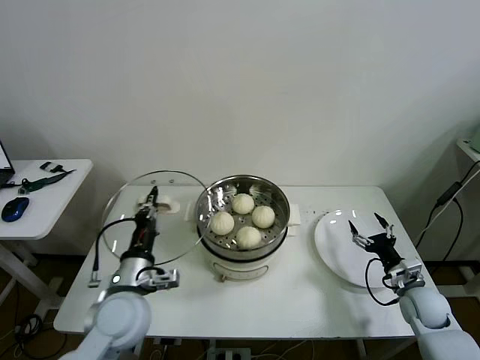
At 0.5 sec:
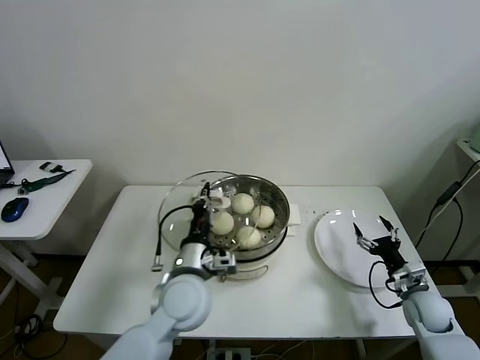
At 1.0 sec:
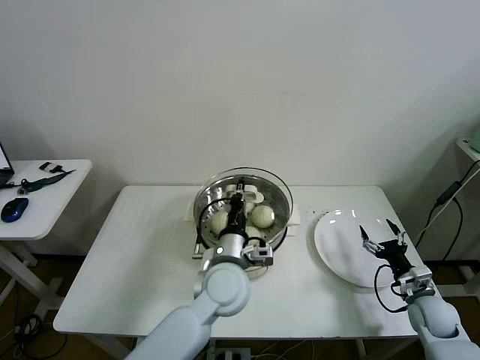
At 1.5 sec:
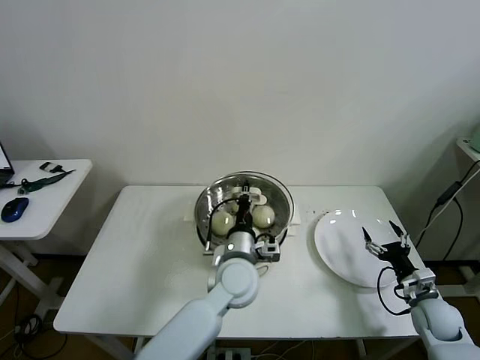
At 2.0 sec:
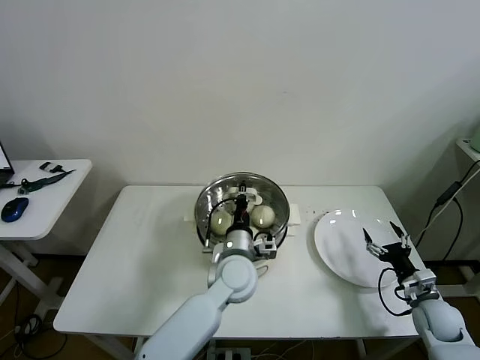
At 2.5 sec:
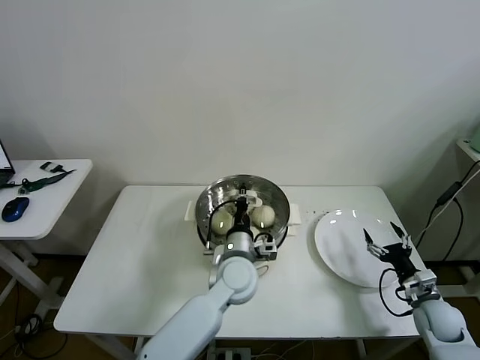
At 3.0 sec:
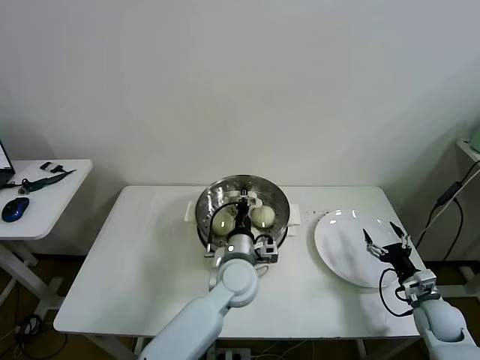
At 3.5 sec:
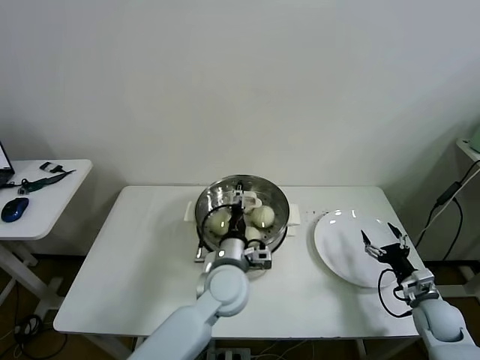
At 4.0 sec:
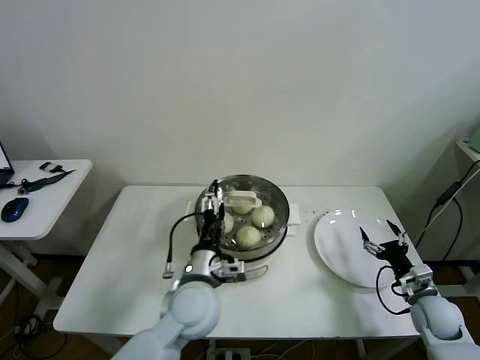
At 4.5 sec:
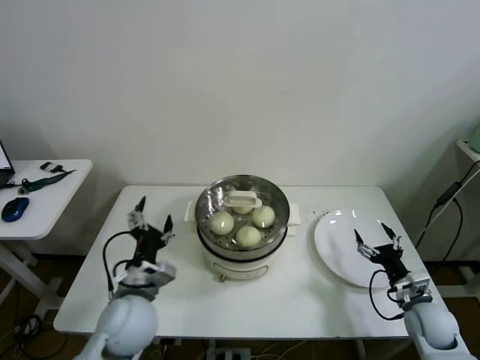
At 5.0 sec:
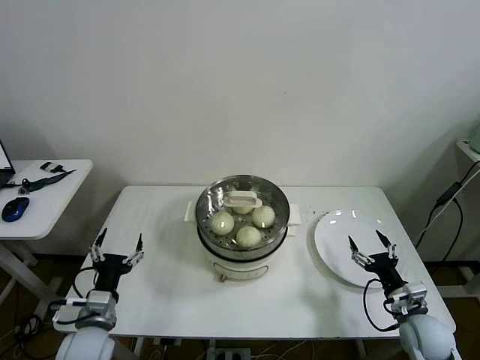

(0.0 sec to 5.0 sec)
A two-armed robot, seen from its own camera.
Task of the whole recording: take steamed baozi put them in steamer then cover it.
Step, 0.0 sec - 3.0 sec: Place the pot lid on the steamer with left gripper.
0.0 sec - 2.5 sec: The left gripper shifts approximately 25 cm to the right and forward.
2.5 sec - 5.0 sec: The left gripper travels to the left and backward by about 30 cm, and opens; the right gripper heads to the left, covering approximately 5 cm.

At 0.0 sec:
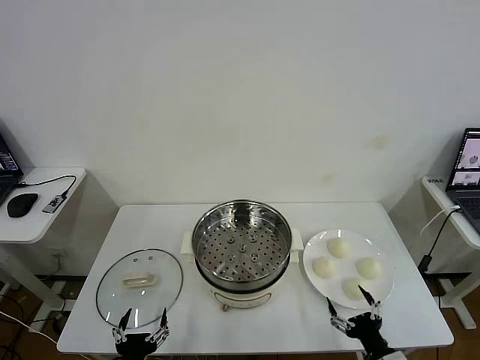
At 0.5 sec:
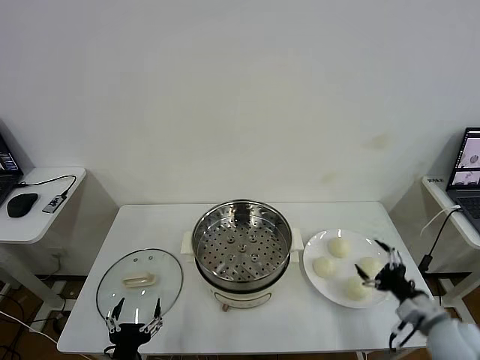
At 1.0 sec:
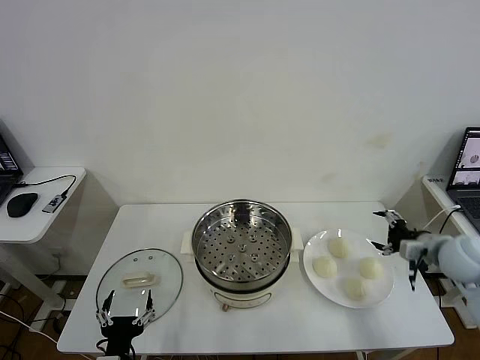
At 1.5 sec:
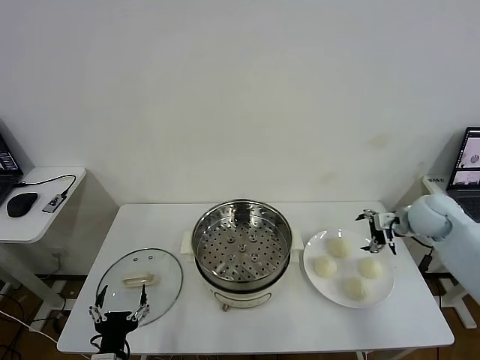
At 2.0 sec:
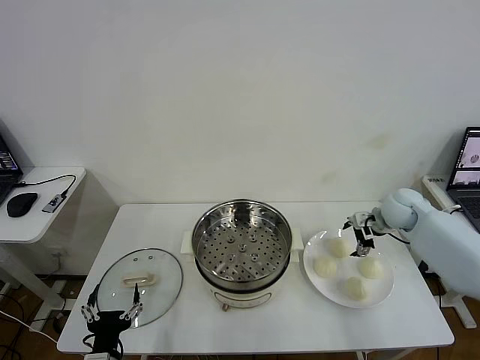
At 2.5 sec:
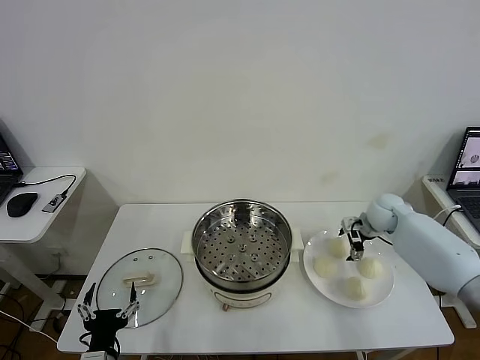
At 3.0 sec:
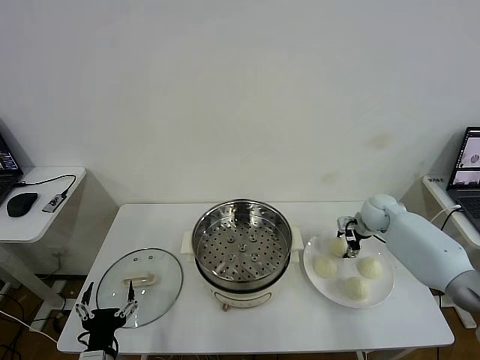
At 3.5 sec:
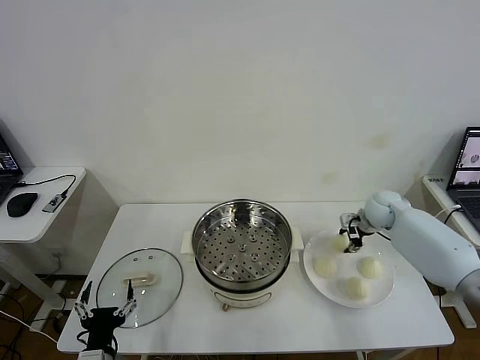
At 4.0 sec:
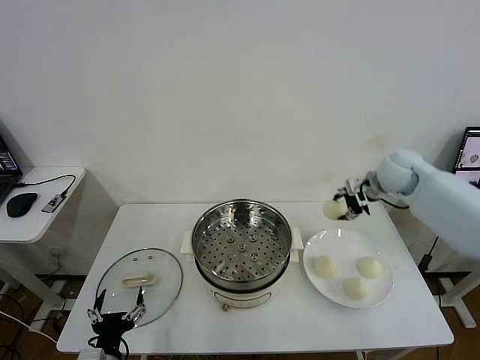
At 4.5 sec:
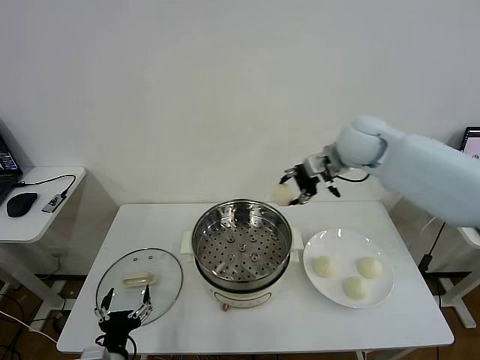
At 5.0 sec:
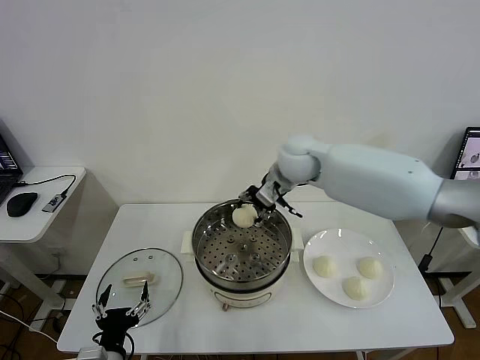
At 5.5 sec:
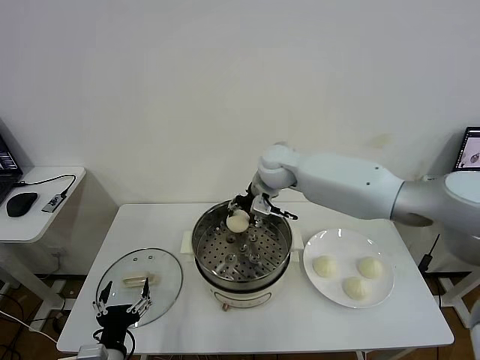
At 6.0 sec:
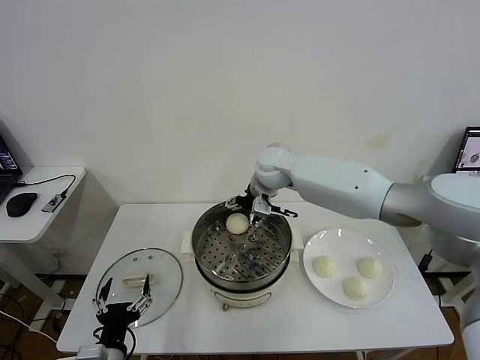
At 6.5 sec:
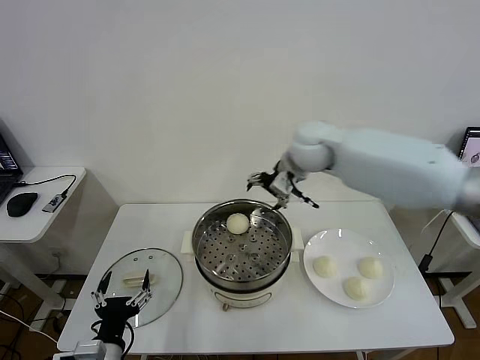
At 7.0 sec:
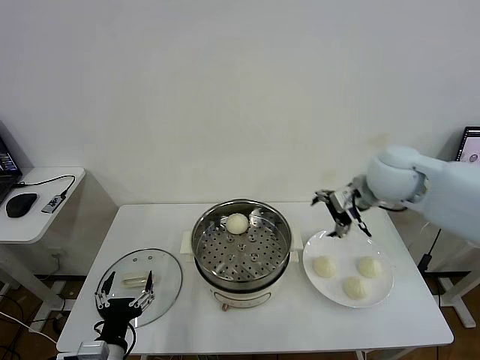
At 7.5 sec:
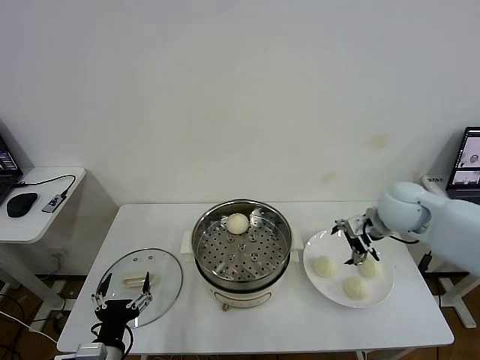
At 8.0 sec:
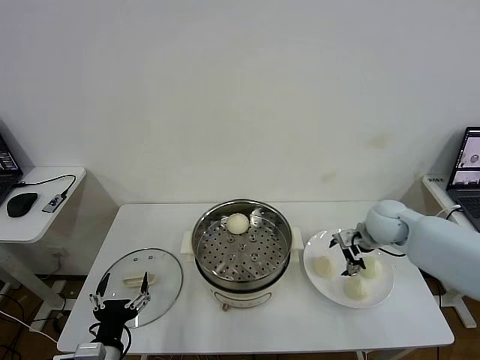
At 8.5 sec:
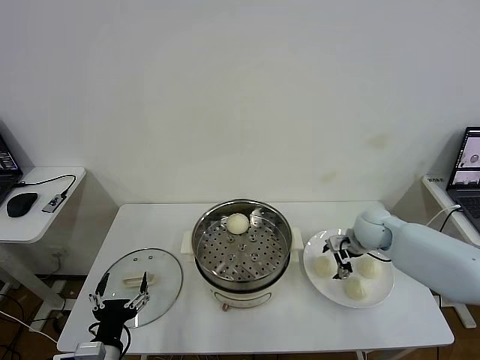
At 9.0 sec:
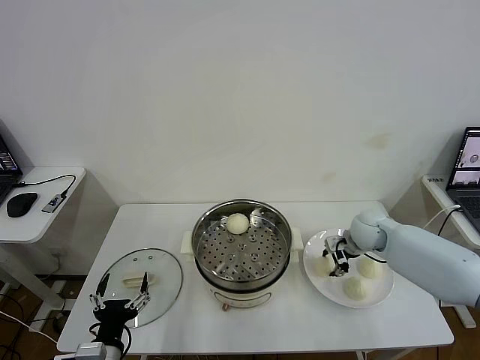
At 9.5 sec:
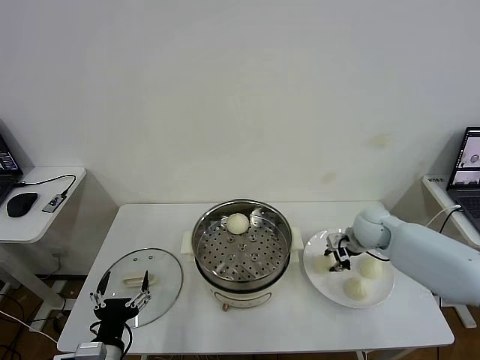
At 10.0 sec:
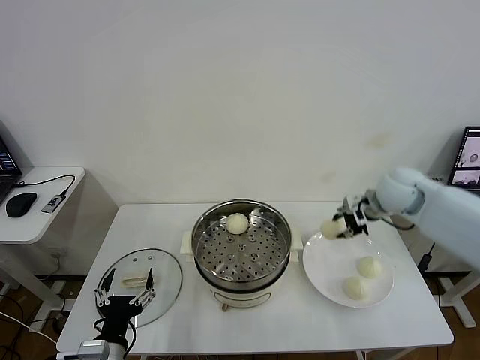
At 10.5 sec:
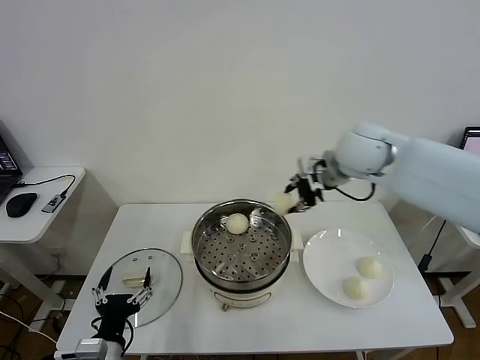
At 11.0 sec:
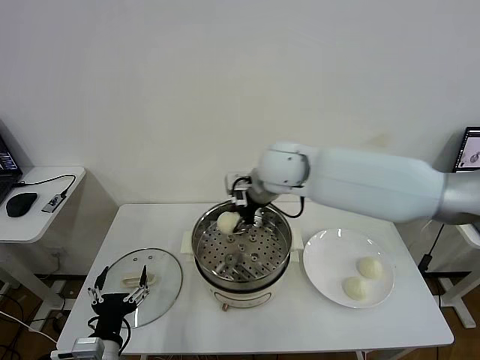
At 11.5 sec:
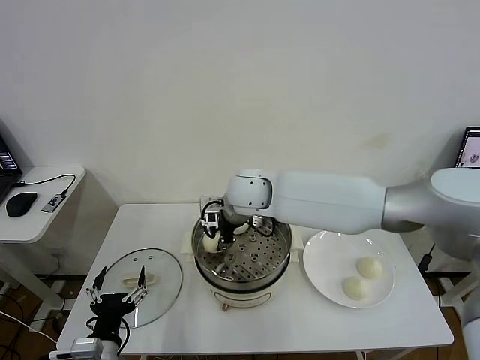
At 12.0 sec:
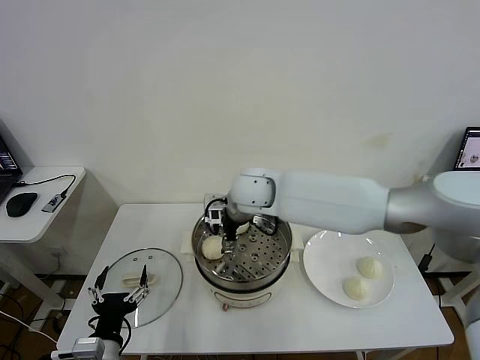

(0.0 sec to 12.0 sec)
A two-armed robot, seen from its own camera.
Task of the whole recording: take steamed baozi put them in steamer then cover it.
Step, 0.0 sec - 3.0 sec: Grasp the baozi in the plate with right gripper.
Step, 3.5 sec - 6.0 sec: Place the baozi on the steamer with right gripper.
Step, 6.5 sec - 9.0 sec: Grasp the baozi in the plate with right gripper.
Step, 9.5 sec - 12.0 sec: Place the baozi on the steamer with right gripper.
2.0 sec - 4.0 sec: The right gripper moves upward, roughly 15 cm, and closes its fingers.
4.0 sec - 6.0 sec: The right gripper heads to the left, covering about 25 cm, and opens up.
6.0 sec - 8.0 sec: The right gripper heads to the right and downward, covering some 25 cm.
8.0 sec - 10.0 sec: The right gripper heads upward, covering approximately 10 cm, and closes its fingers.
10.0 sec - 12.0 sec: The right gripper moves to the left, approximately 30 cm, and opens its fingers.

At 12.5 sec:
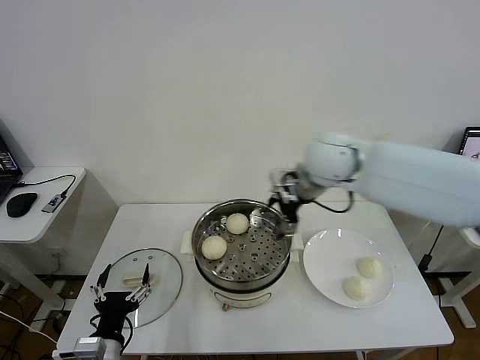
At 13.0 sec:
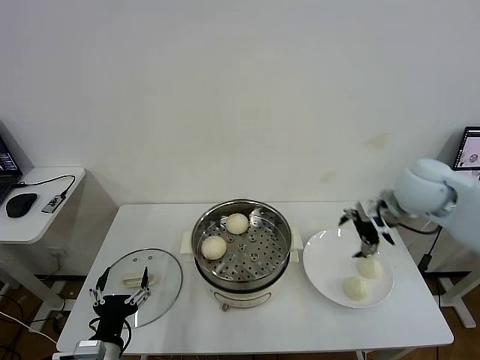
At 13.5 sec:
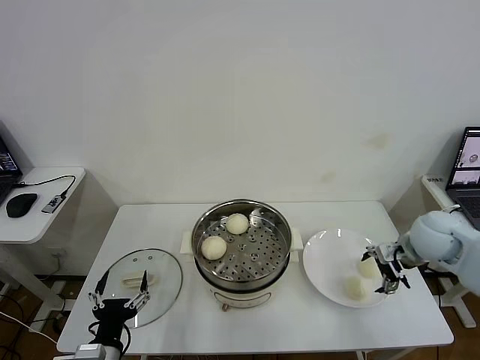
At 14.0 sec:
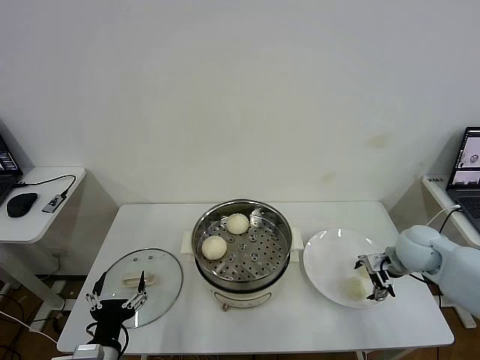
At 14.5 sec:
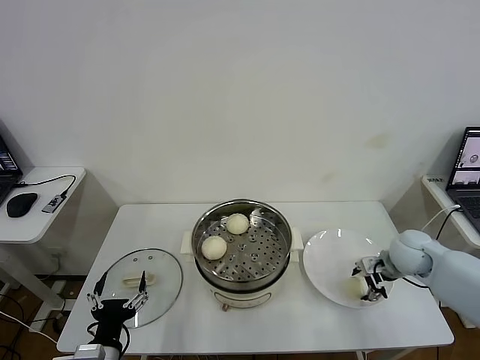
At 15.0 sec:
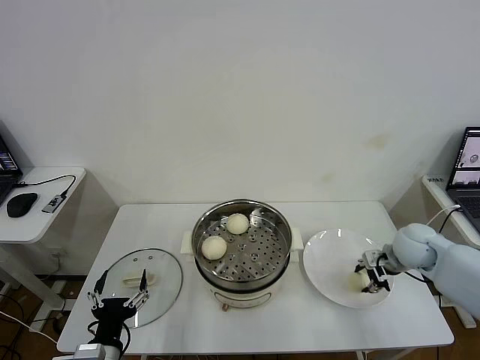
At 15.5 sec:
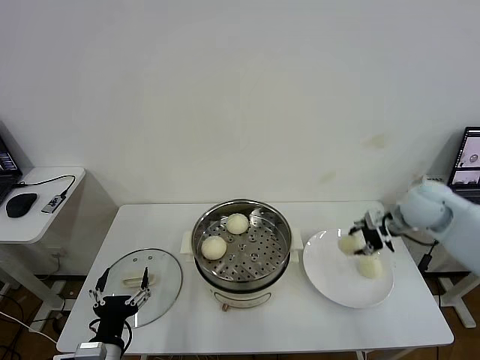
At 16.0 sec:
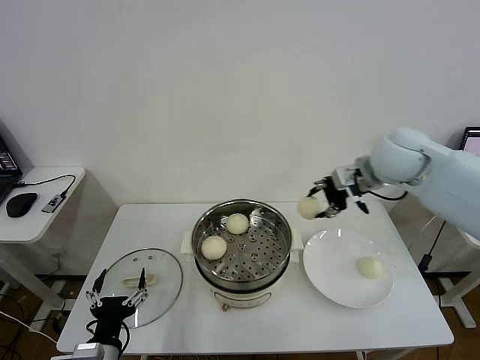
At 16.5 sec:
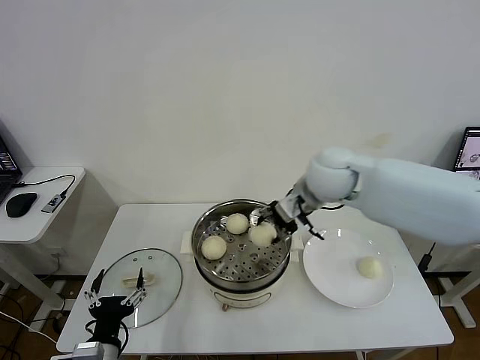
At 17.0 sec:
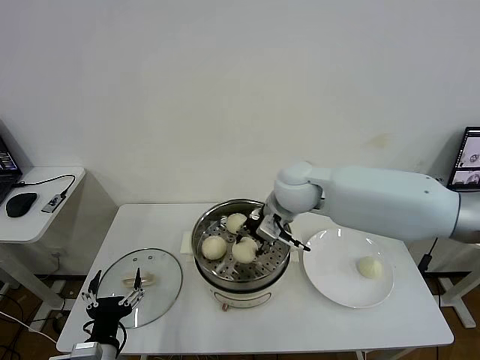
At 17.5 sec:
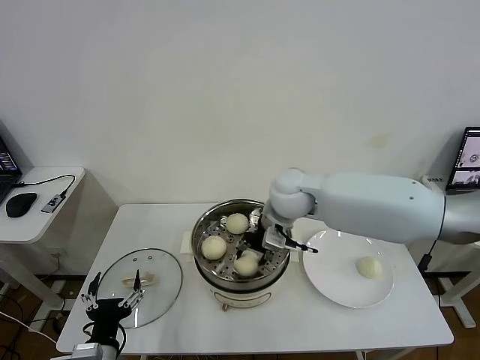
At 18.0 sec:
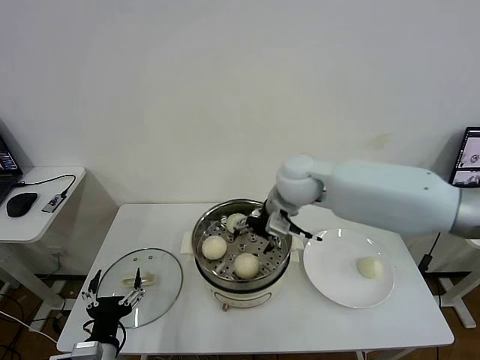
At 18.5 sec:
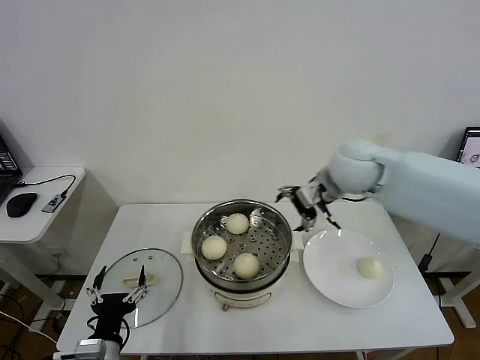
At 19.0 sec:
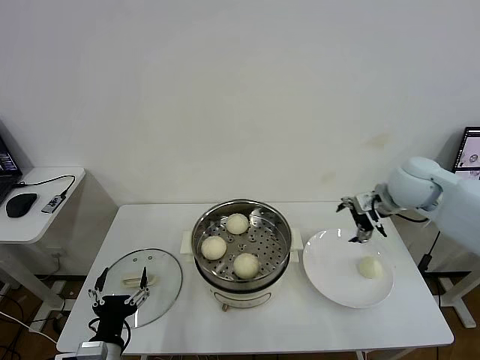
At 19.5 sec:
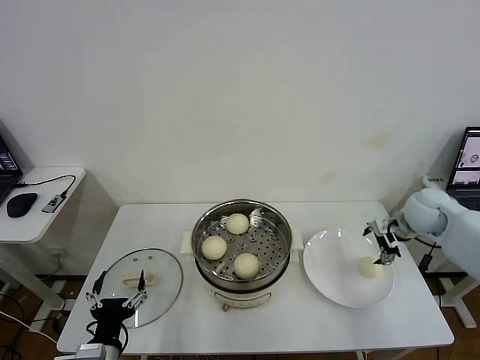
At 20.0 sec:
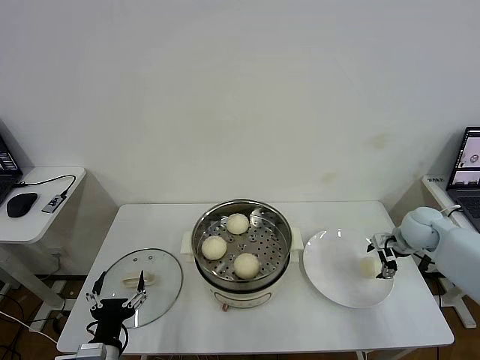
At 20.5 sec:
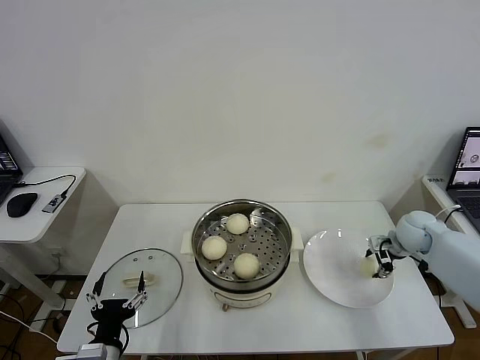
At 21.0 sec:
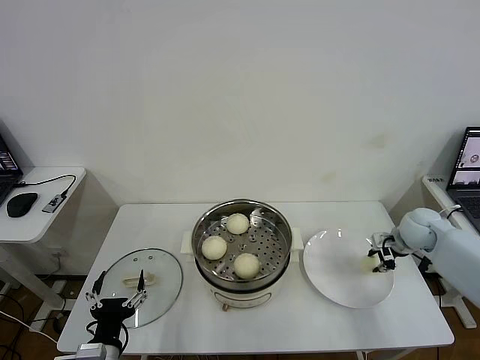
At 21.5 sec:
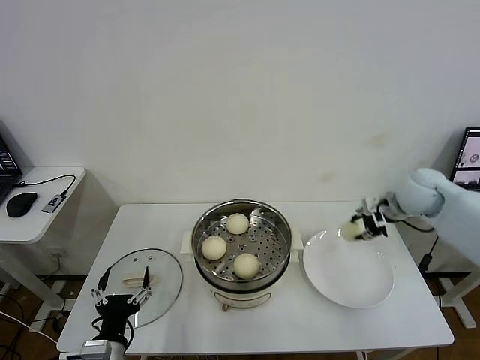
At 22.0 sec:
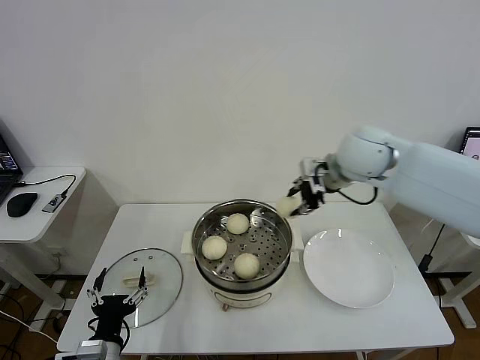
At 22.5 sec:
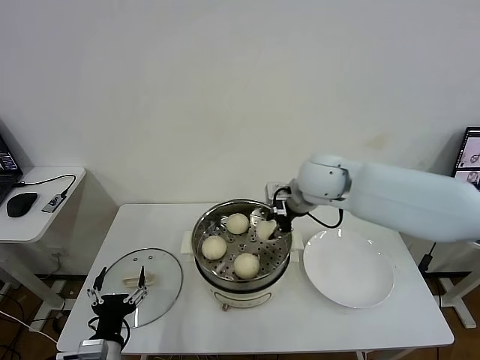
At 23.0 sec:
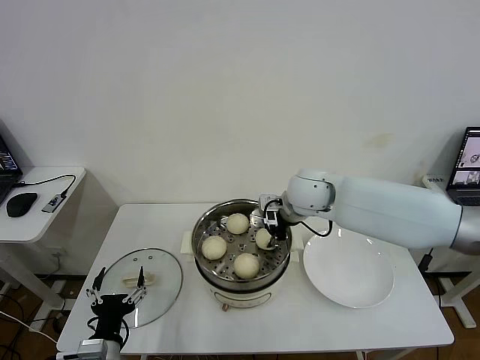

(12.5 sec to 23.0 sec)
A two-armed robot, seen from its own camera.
Task of the whole recording: take steamed baozi put them in steamer then cover it.
Step, 12.5 sec - 15.0 sec: Grasp the baozi in the plate with right gripper.
Step, 15.5 sec - 17.5 sec: Place the baozi on the steamer with right gripper.
Step, 18.0 sec - 20.5 sec: Grasp the baozi in the plate with right gripper.
12.5 sec - 14.5 sec: The right gripper moves downward and to the right, about 30 cm, and closes.
14.5 sec - 16.5 sec: The right gripper goes some 30 cm to the left and upward.
16.5 sec - 19.0 sec: The right gripper shifts about 20 cm to the right, and opens its fingers.
19.0 sec - 21.0 sec: The right gripper travels downward and to the right by some 15 cm, and closes its fingers.
21.0 sec - 23.0 sec: The right gripper travels to the left by about 30 cm.
